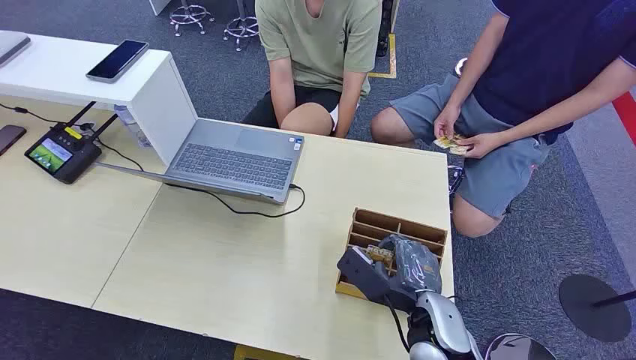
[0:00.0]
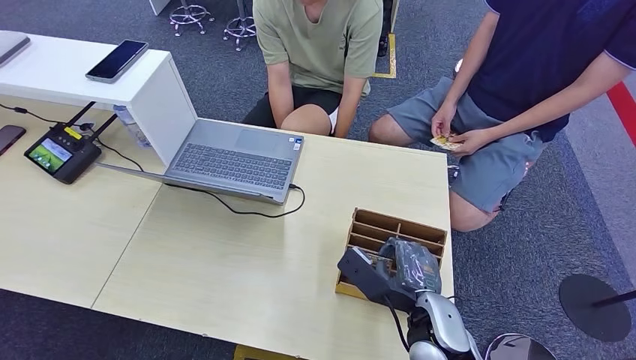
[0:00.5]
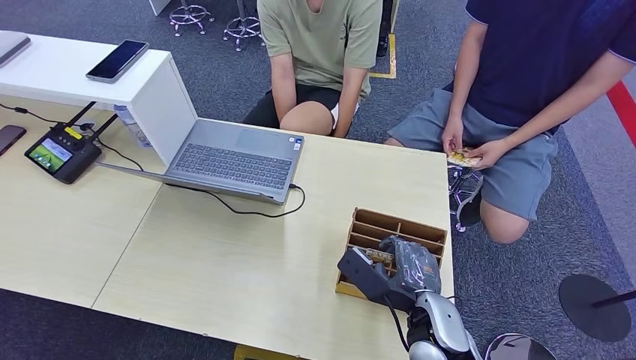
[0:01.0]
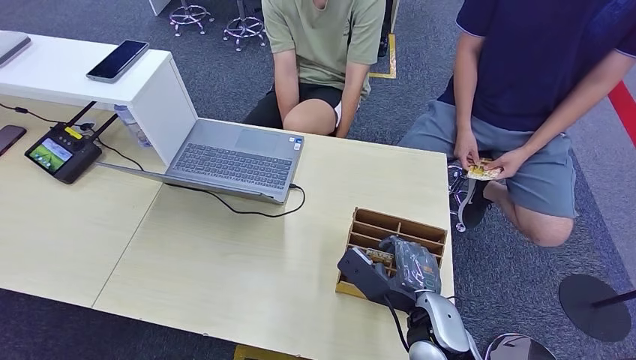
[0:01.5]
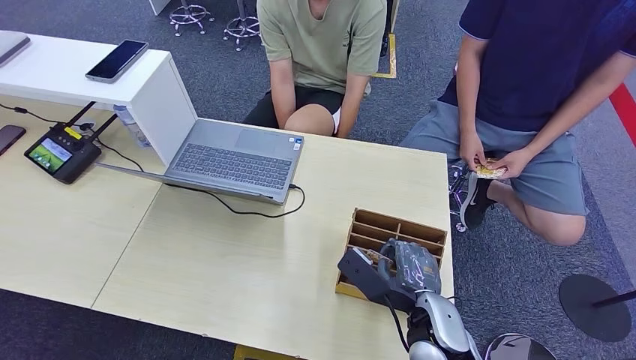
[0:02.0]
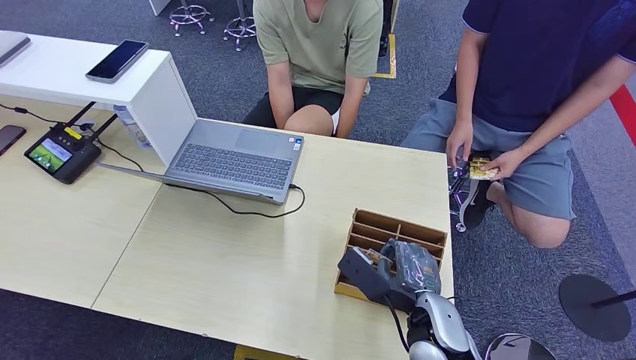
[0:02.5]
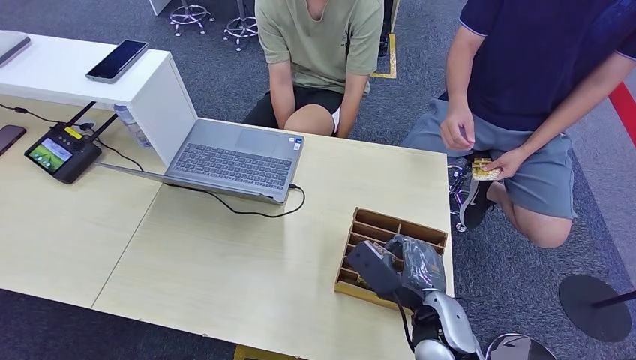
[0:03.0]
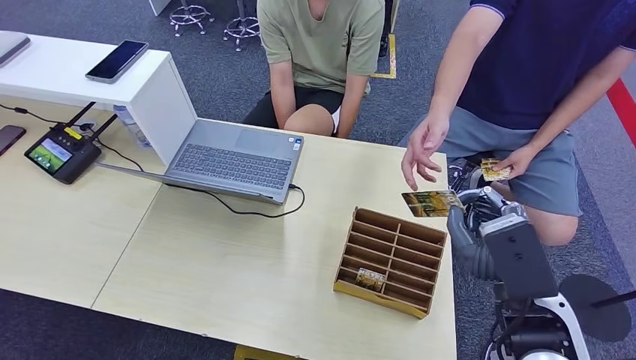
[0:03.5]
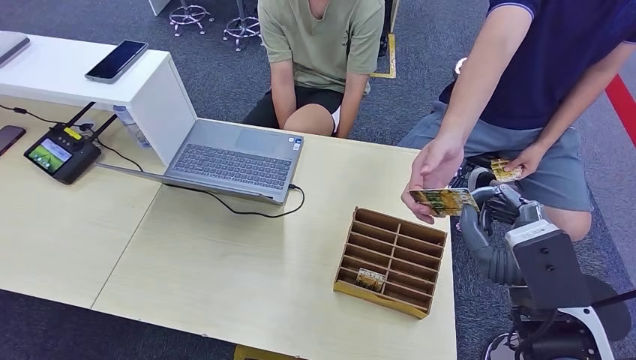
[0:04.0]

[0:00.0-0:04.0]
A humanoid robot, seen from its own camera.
Step, 0:00.0 to 0:03.0: Pick up the key card from the card box.
Step, 0:03.5 to 0:04.0: Hand the key card to the target.
0:02.0 to 0:04.0: The right hand travels upward and to the right by roughly 15 cm.
